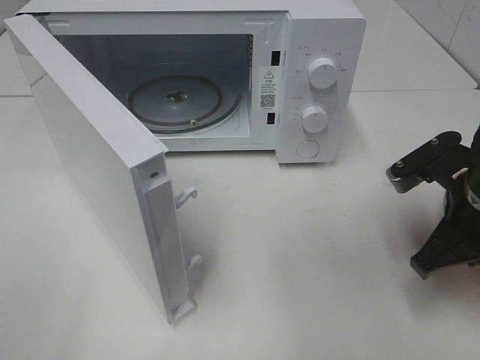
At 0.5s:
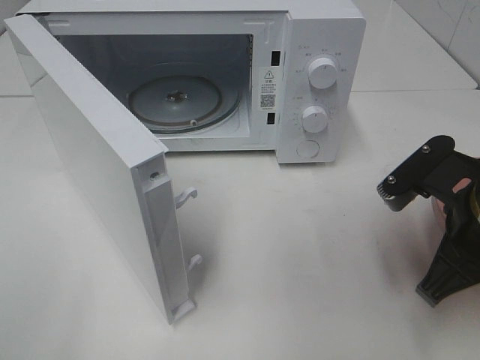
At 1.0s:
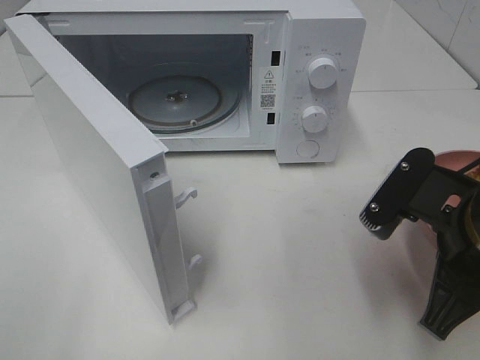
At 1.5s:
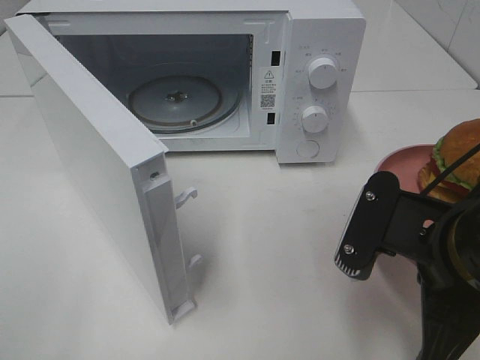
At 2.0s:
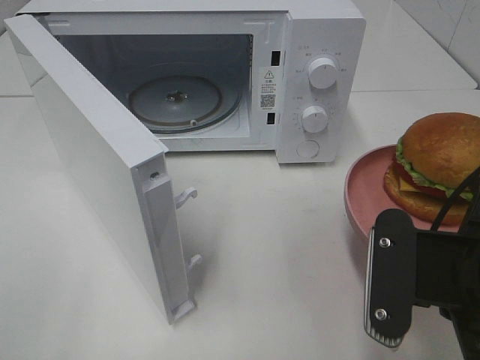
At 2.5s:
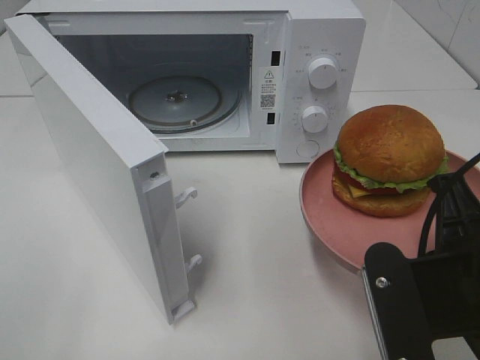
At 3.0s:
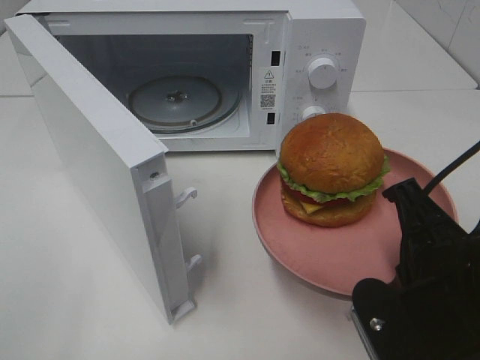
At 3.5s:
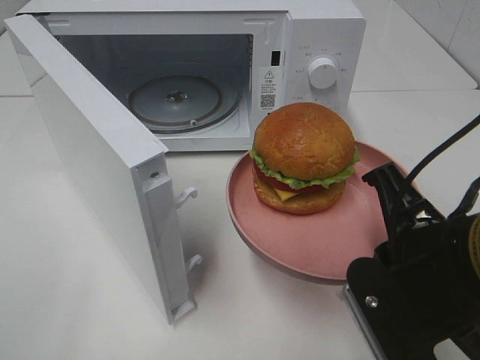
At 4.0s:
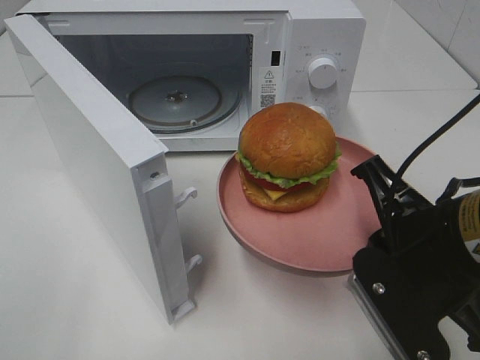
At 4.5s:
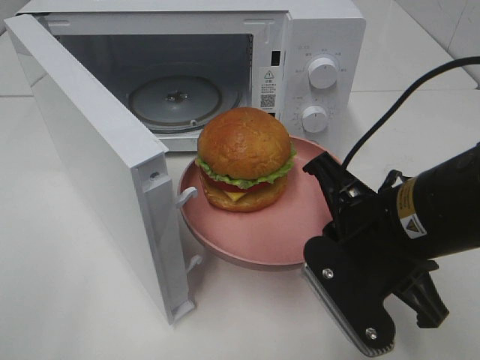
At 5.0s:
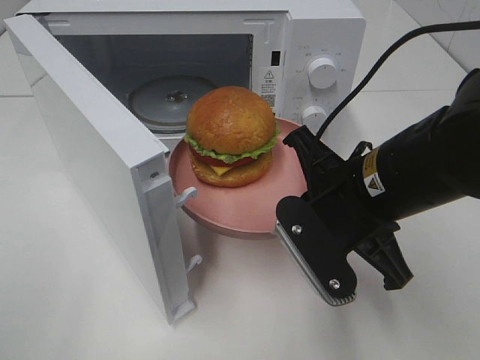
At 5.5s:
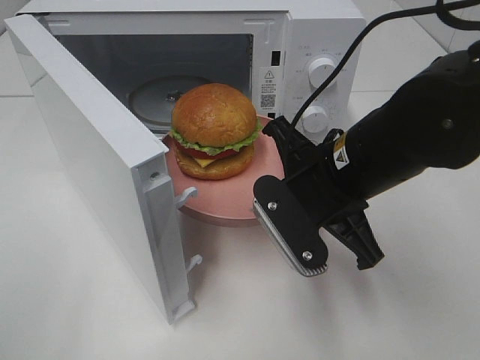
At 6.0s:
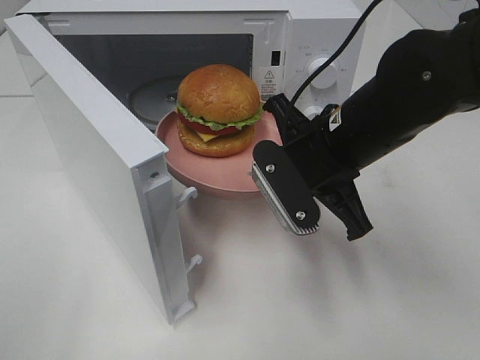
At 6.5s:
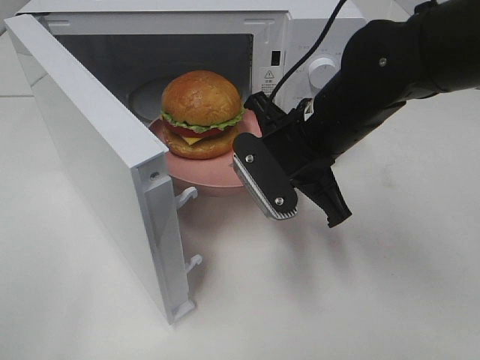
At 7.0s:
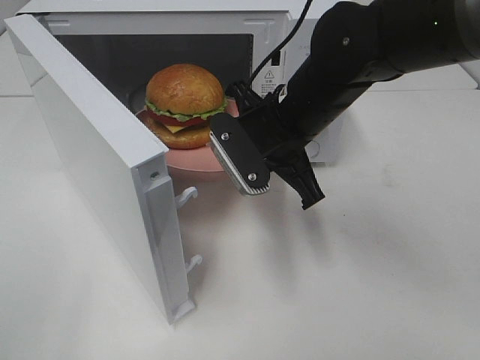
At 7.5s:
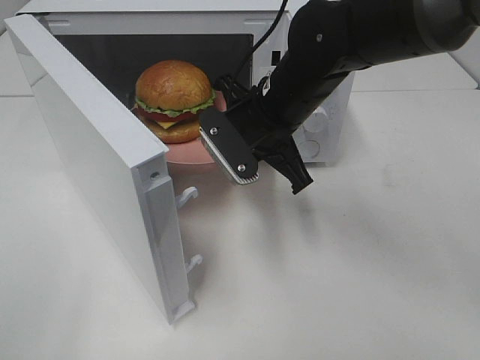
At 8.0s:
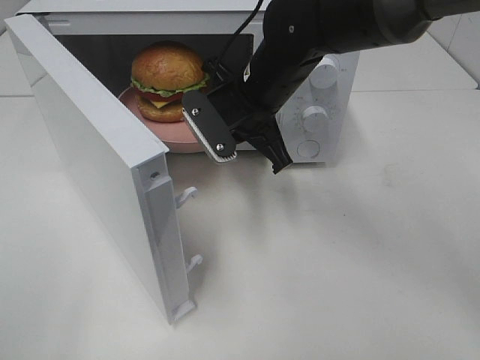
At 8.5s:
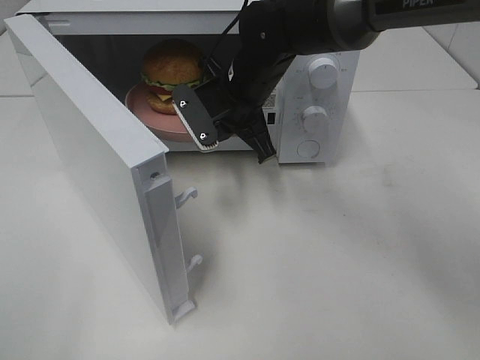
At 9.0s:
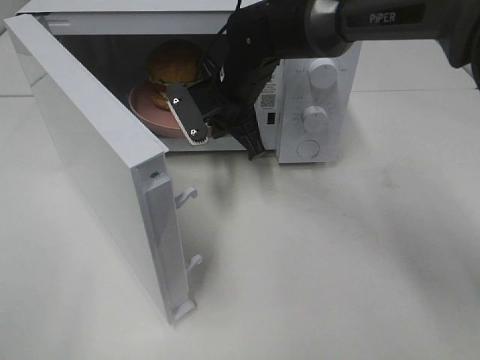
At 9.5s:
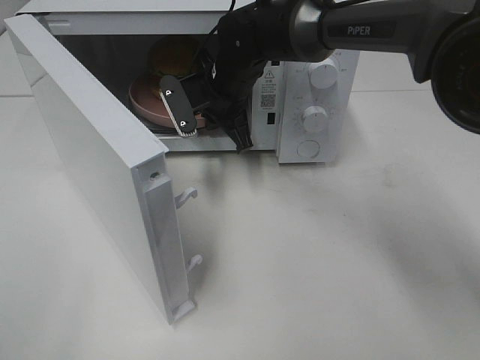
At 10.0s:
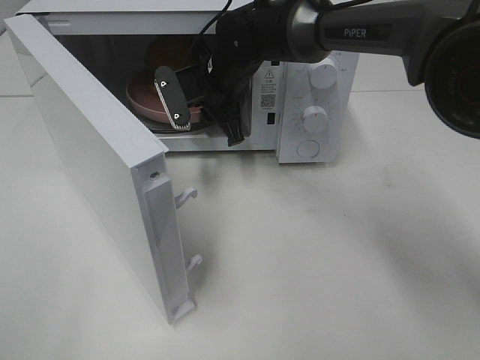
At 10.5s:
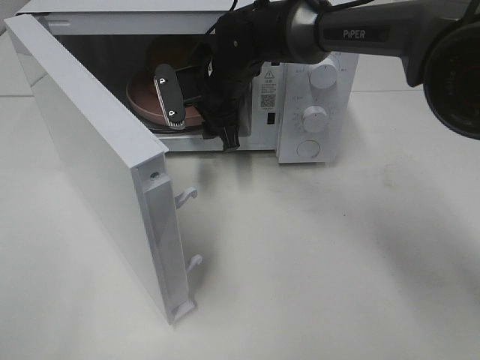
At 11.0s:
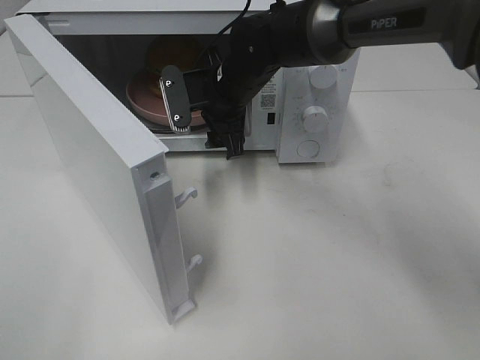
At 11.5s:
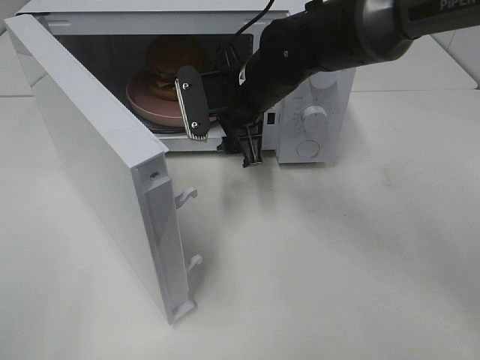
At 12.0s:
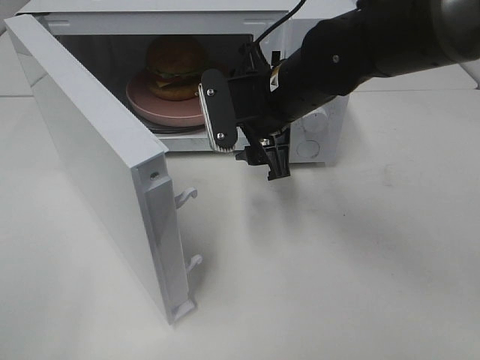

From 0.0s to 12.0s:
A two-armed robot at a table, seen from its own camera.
Task of the whole recording: Heat the burger.
Step, from 0.0s to 10.0s: Right hand: place the plate in the microwave.
From 0.0s to 2.0s: The right gripper moves backward and to the left, about 15 cm.
From 4.0s to 6.0s: The right gripper travels forward and to the left by approximately 15 cm.
From 6.0s to 8.0s: The right gripper is displaced forward and to the left by approximately 10 cm.
From 8.0s to 10.0s: The right gripper shifts about 10 cm forward, and opens its fingers.
From 10.0s to 12.0s: The right gripper moves backward and to the right, about 15 cm, and opens.

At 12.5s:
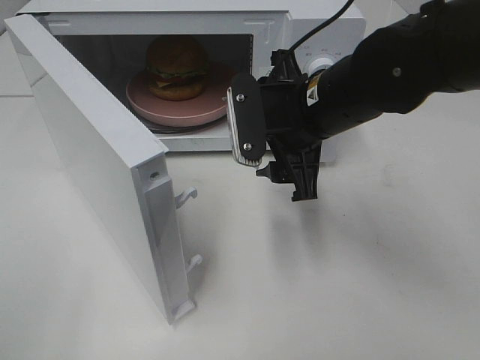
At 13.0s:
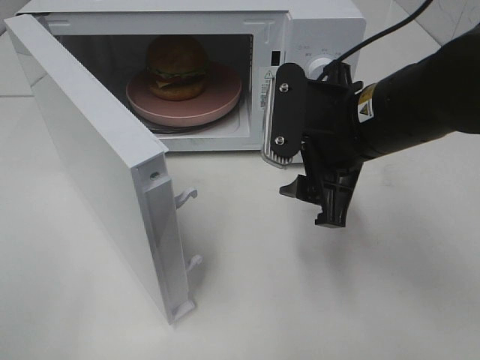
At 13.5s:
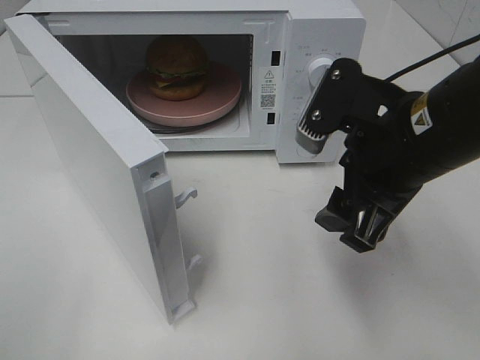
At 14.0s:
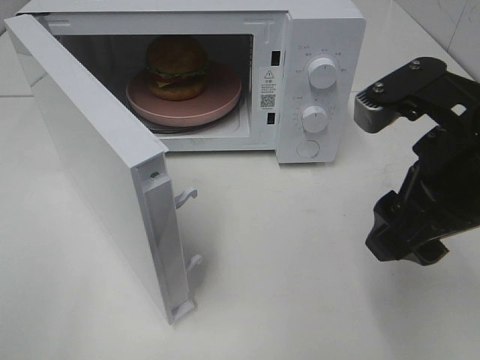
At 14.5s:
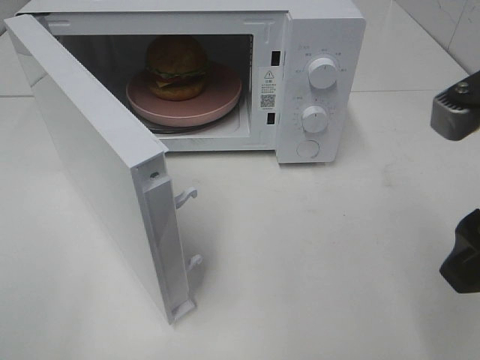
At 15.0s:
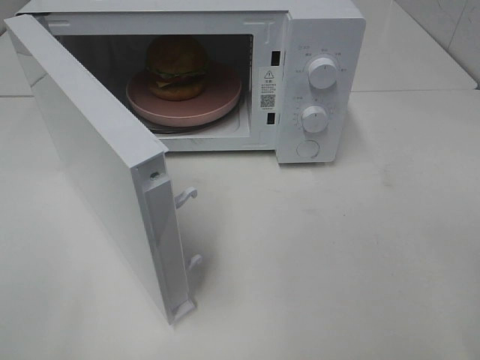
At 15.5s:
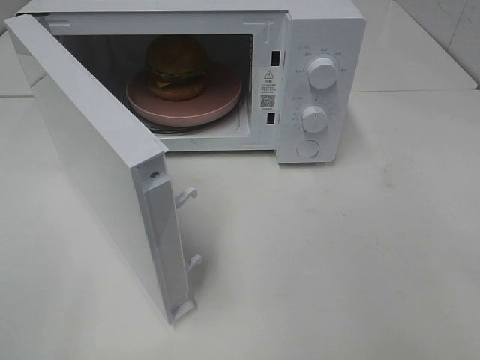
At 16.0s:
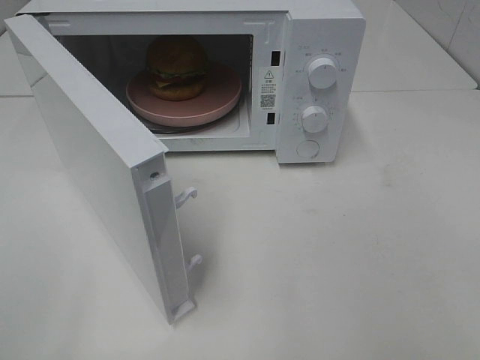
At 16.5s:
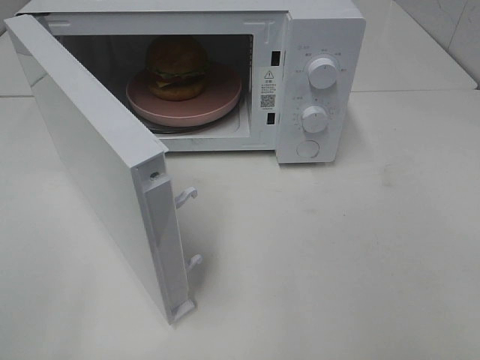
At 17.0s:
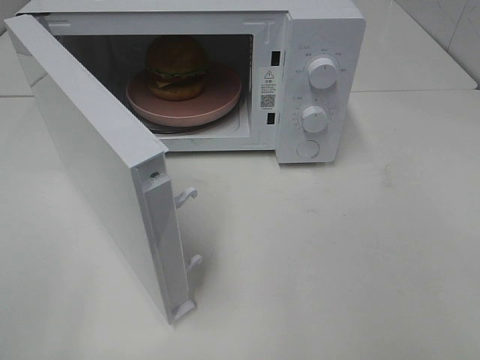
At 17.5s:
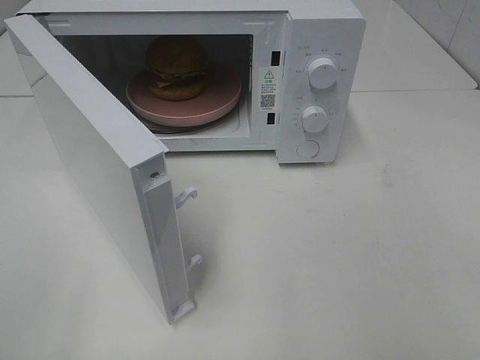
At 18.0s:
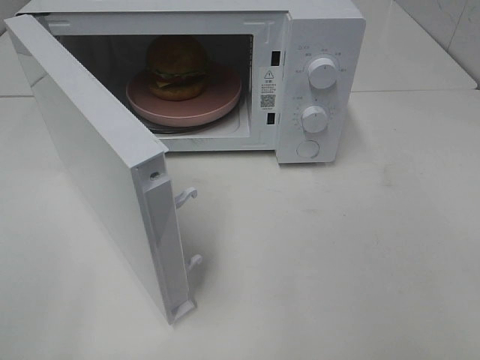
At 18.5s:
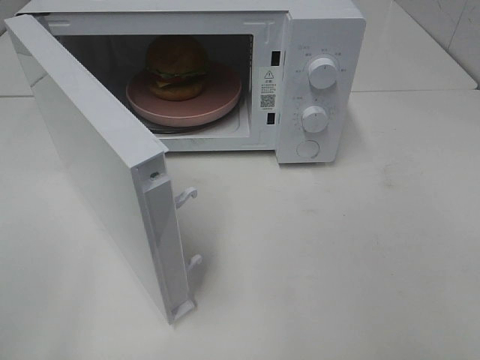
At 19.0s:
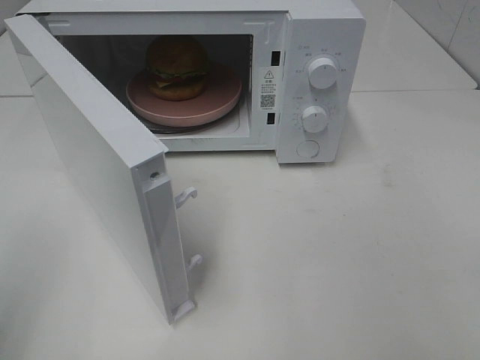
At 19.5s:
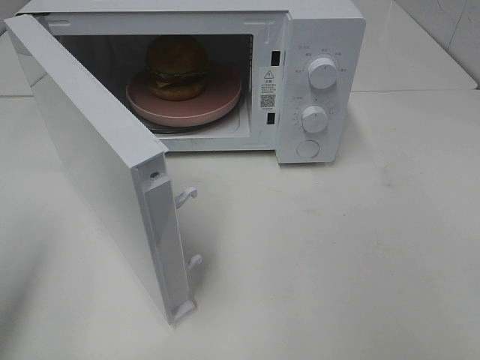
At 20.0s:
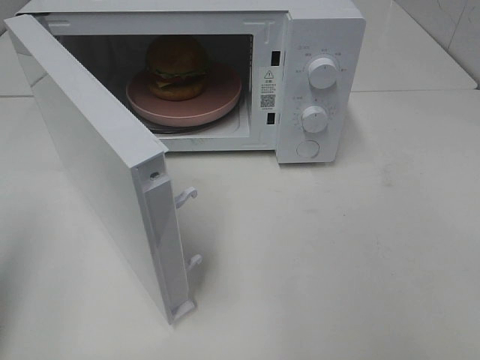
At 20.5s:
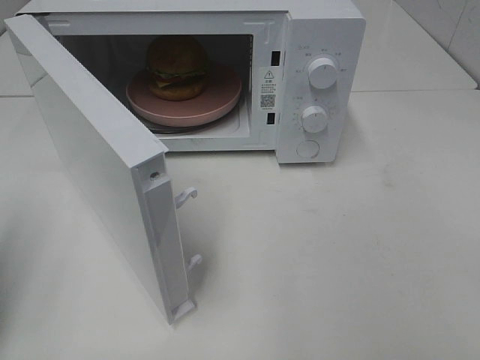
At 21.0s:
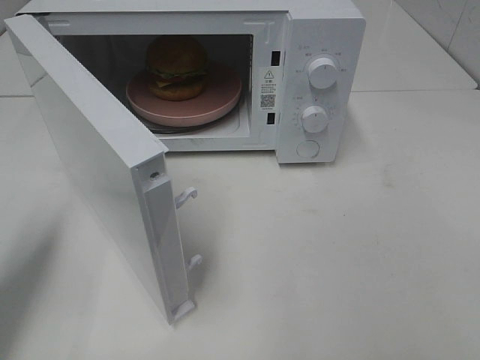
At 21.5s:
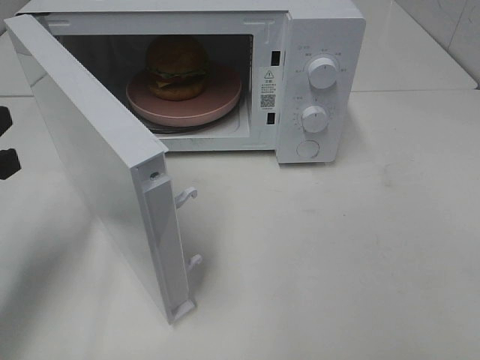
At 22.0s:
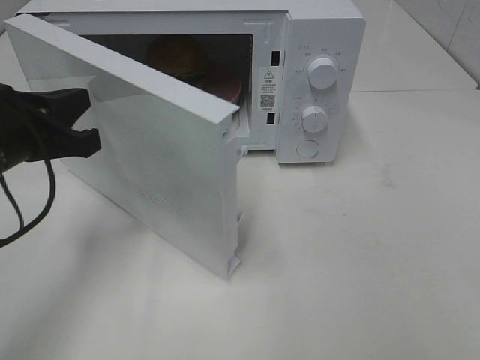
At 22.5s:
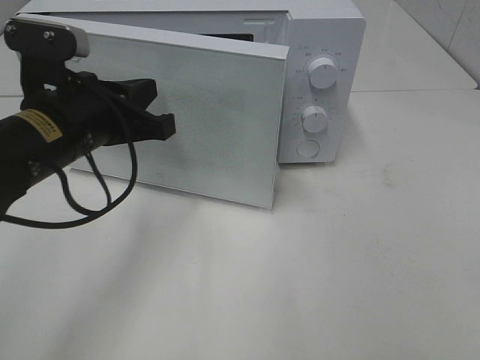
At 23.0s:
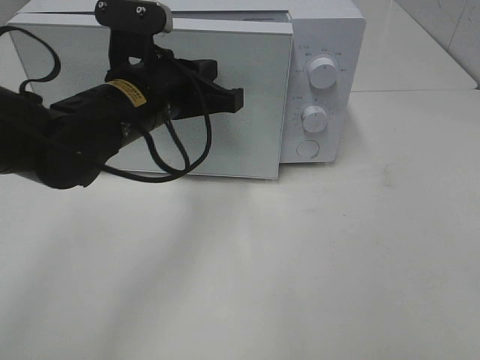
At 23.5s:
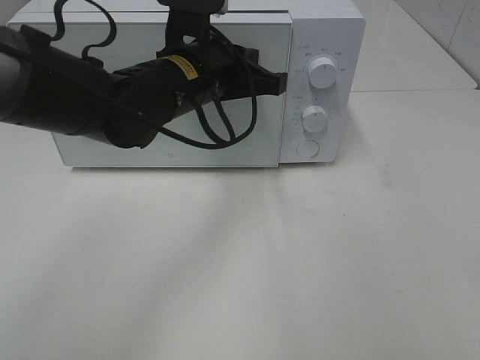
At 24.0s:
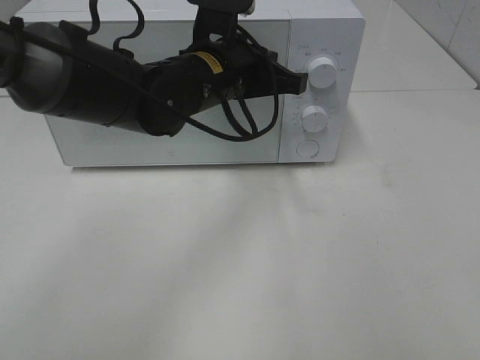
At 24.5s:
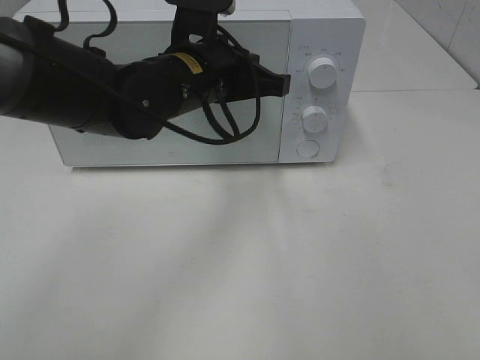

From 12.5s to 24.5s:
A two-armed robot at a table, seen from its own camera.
Task of the whole recording: Heat the burger.
Step, from 12.5s to 24.5s: Left hand: close the microwave door.
From 12.5s to 14.5s: The right gripper travels backward, to the right and upward by approximately 20 cm.
From 14.5s to 16.5s: The right gripper shifts some 15 cm backward and to the right.
From 18.5s to 20.5s: The left gripper shifts about 15 cm forward and downward, and closes its fingers.
From 20.5s to 22.5s: The left gripper goes some 20 cm to the right and forward.
From 22.5s to 24.5s: The left gripper goes about 15 cm to the right and forward.

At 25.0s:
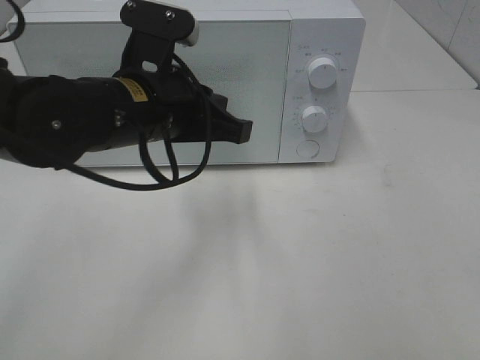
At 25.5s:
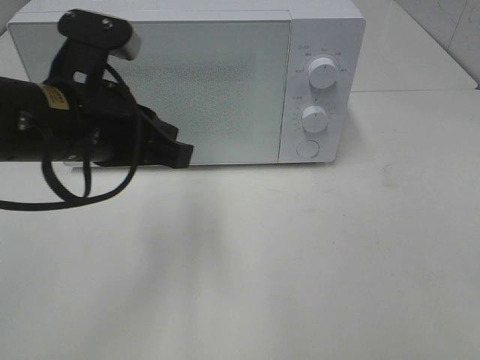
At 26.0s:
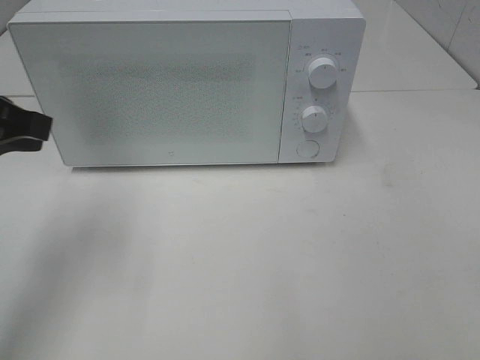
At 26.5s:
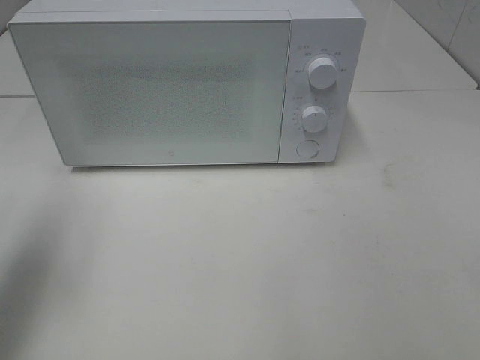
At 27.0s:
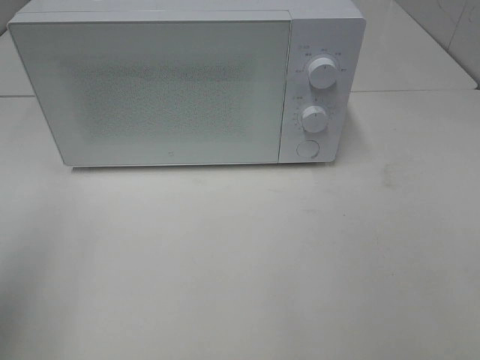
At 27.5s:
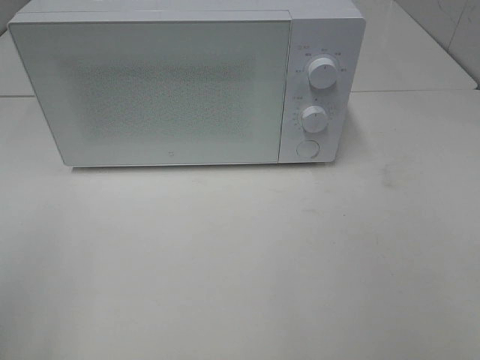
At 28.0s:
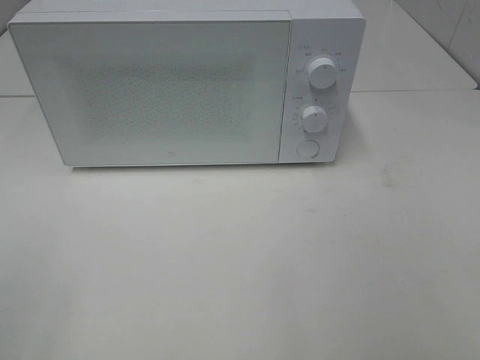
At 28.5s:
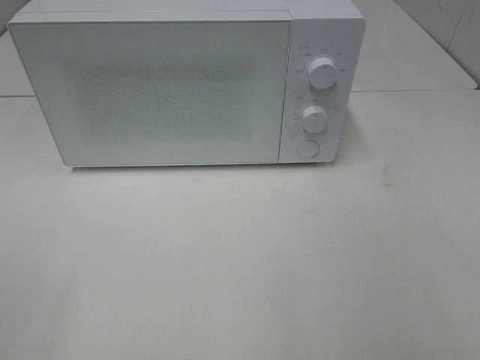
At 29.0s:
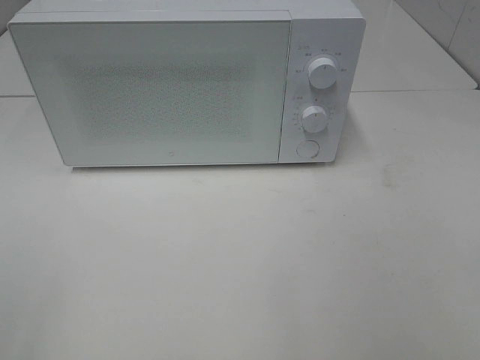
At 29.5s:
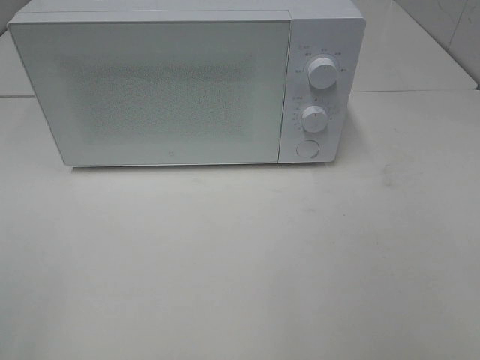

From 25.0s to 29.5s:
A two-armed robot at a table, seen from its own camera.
Task of the whole recording: Heat the burger.
From 25.0s to 27.0s: The left gripper is displaced to the left and backward by roughly 25 cm, and opens up.
From 27.0s to 29.5s: The left gripper is displaced backward by some 10 cm.
